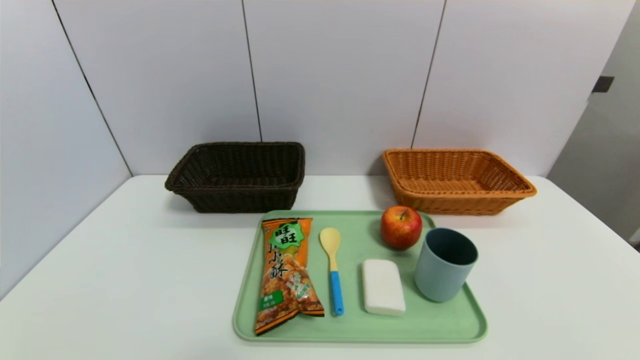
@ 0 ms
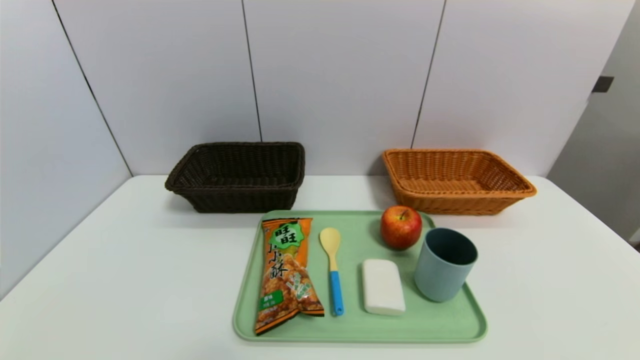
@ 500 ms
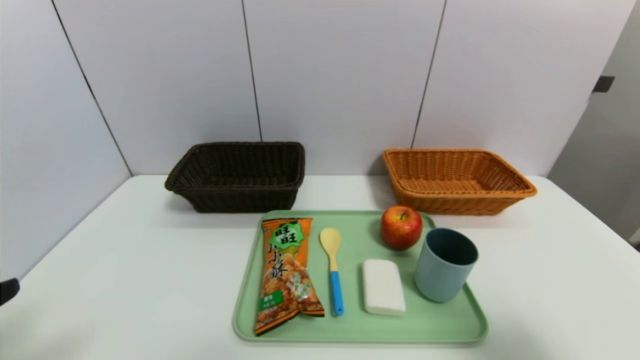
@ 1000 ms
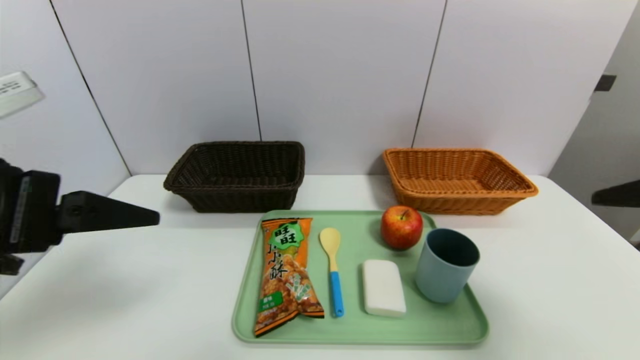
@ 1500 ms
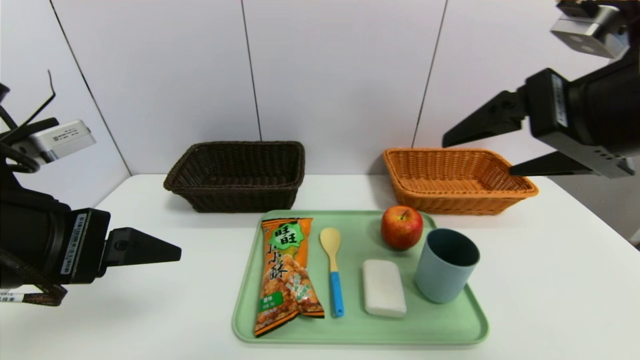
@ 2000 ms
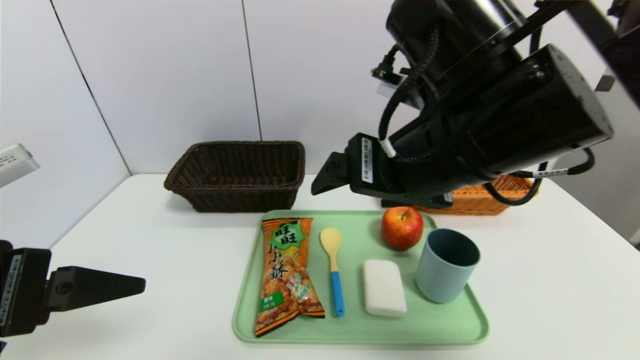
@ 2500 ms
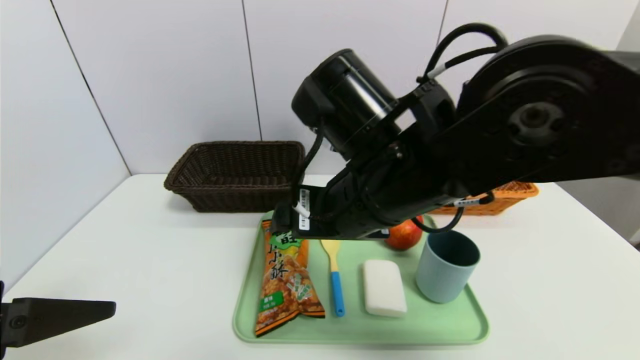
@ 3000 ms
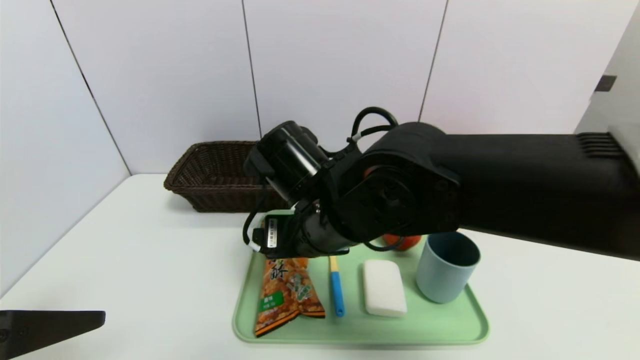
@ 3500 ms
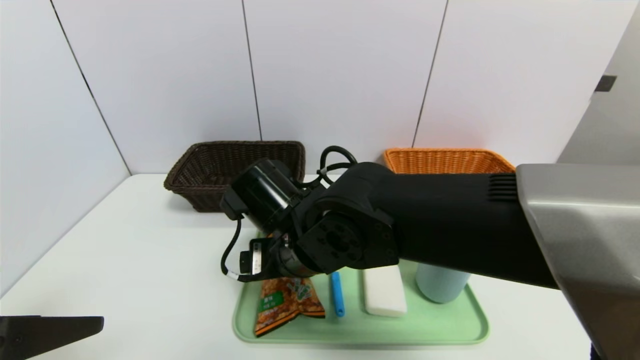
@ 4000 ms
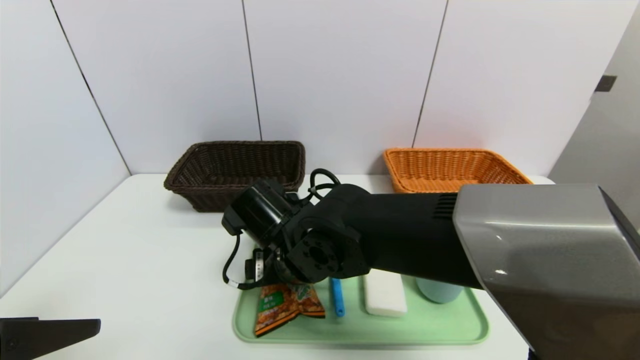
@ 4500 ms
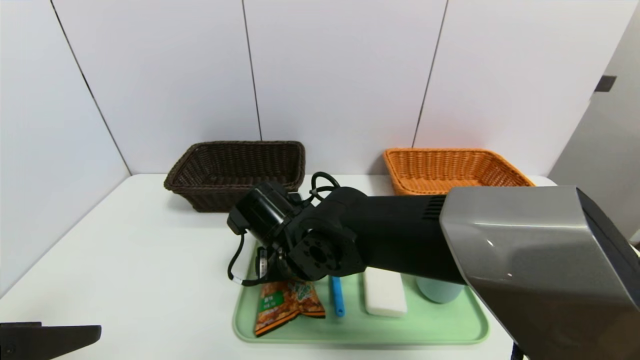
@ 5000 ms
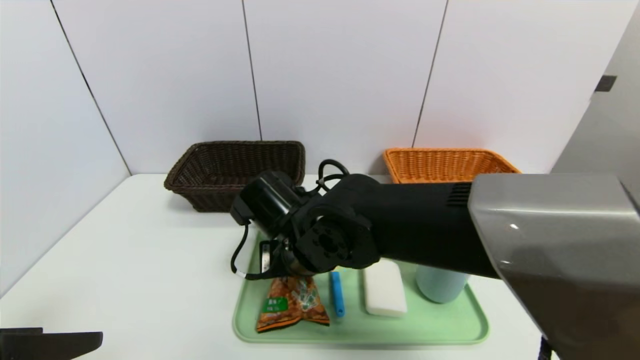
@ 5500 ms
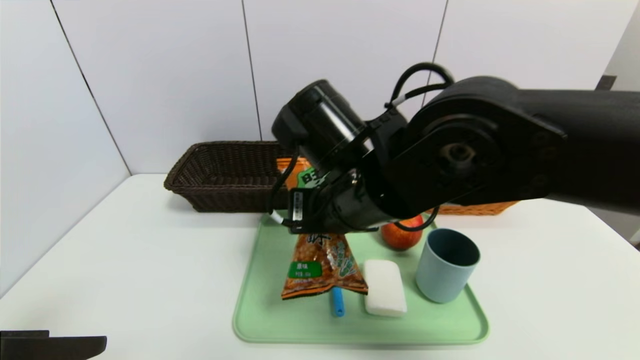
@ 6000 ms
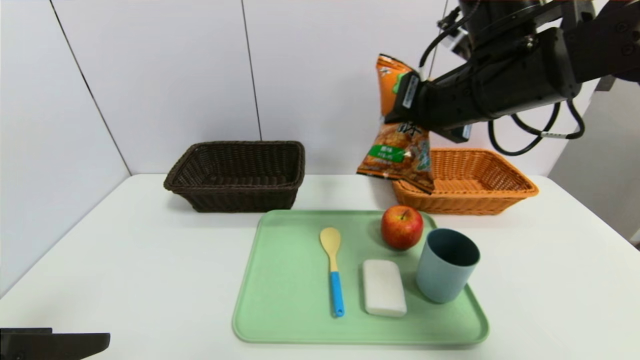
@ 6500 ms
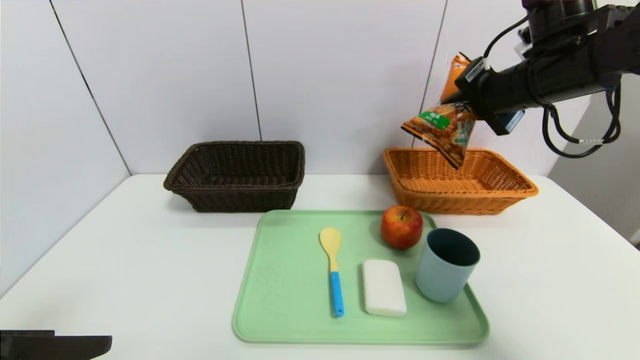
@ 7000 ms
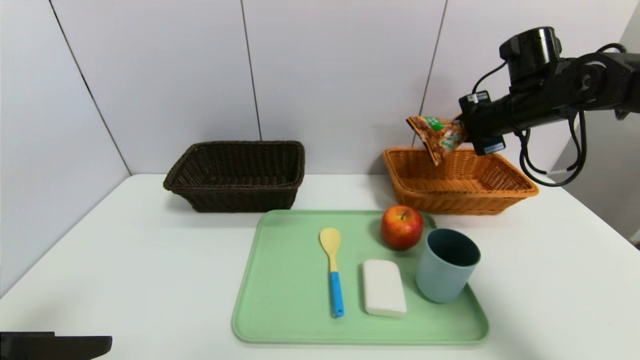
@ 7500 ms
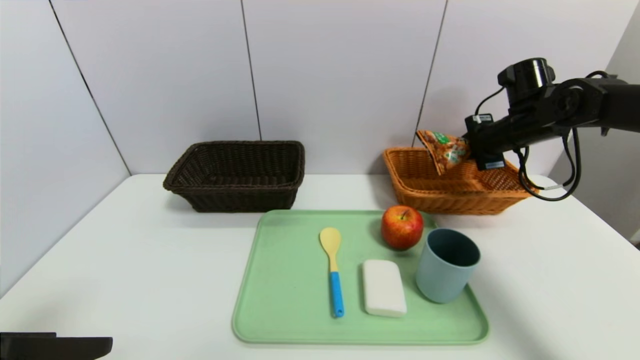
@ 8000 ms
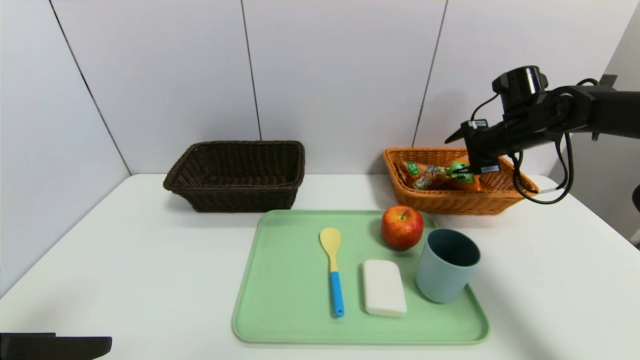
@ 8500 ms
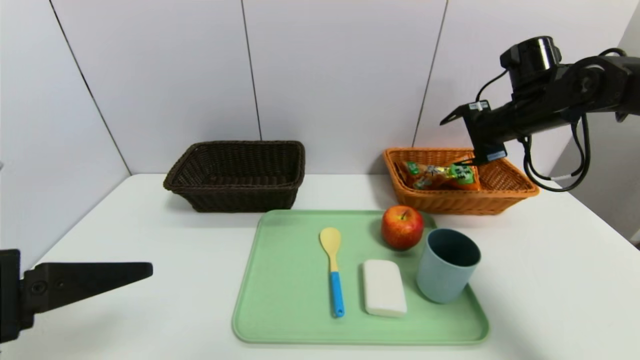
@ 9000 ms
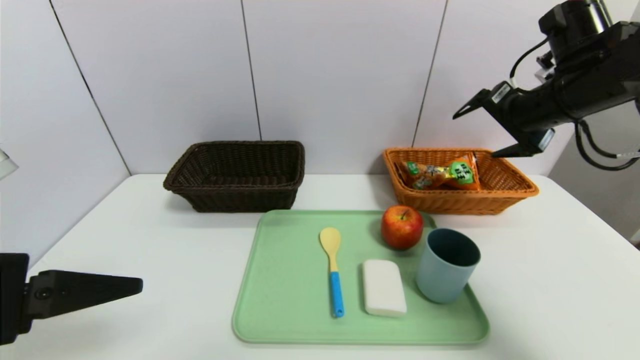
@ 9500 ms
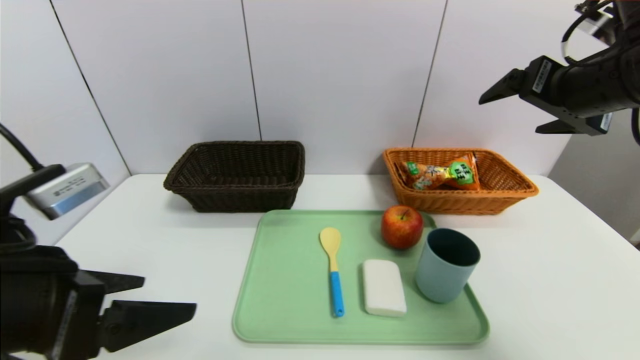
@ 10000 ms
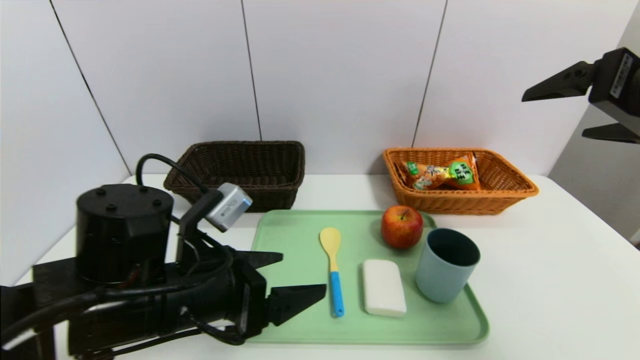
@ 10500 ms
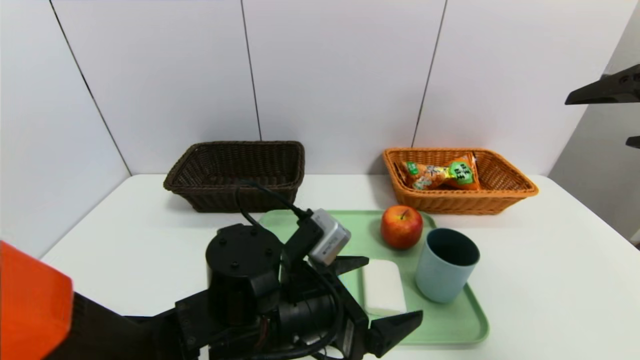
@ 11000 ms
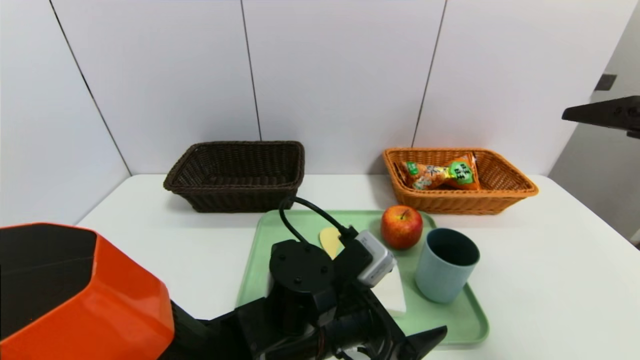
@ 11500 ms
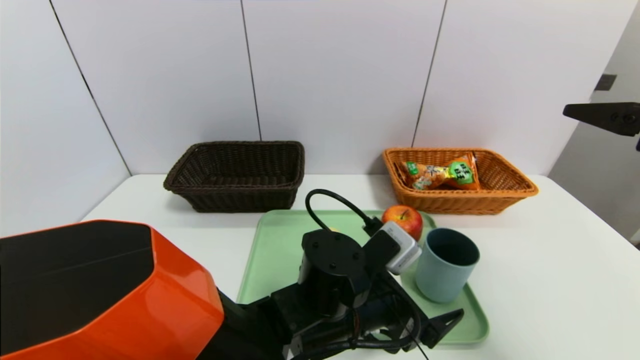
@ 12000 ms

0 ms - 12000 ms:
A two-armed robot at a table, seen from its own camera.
Task of the whole recording: place the food in the right basket with the right gripper, and place the non food items in the left basket with the left gripper.
Step, 0 ms - 9000 ms: Grasp the cookie and put it in the right basket.
0 ms - 2000 ms: The right gripper is displaced upward, forward and to the left by approximately 35 cm; the left gripper heads upward and forward, covering approximately 25 cm.
2000 ms - 4000 ms: The right gripper goes roughly 30 cm to the left and downward; the left gripper heads backward, covering approximately 5 cm.
4000 ms - 6000 ms: The right gripper shifts approximately 10 cm upward and to the right, and closes up.
6000 ms - 8000 ms: The right gripper heads to the right and forward, covering some 35 cm.
8000 ms - 10000 ms: The left gripper changes place by roughly 5 cm, while the right gripper goes approximately 20 cm backward and upward, and opens up.
10000 ms - 12000 ms: The right gripper moves backward, roughly 10 cm; the left gripper travels to the right and downward by roughly 30 cm.

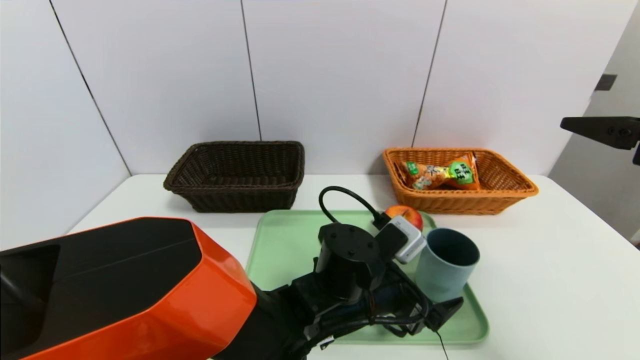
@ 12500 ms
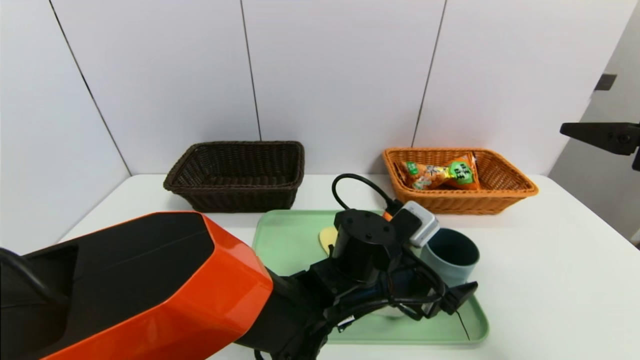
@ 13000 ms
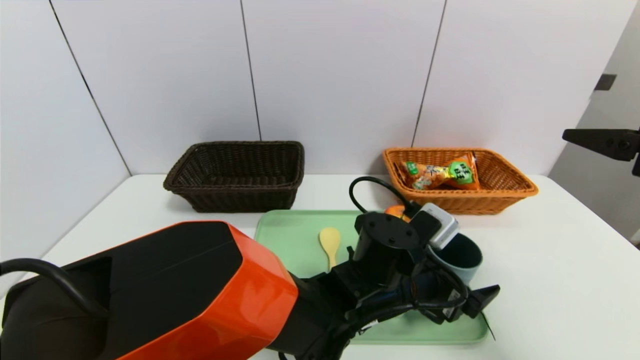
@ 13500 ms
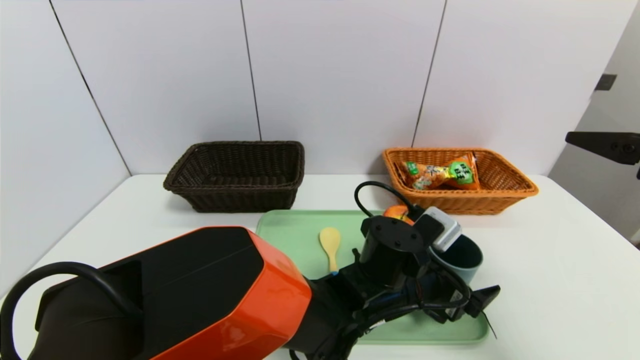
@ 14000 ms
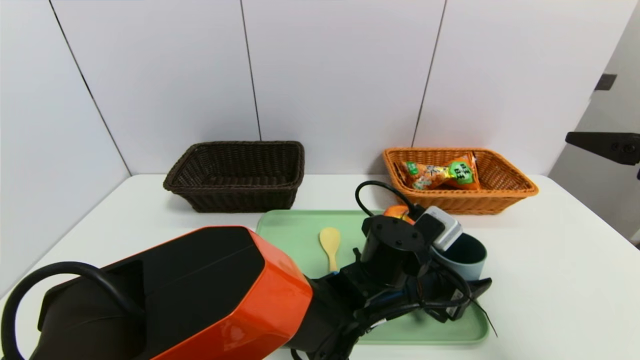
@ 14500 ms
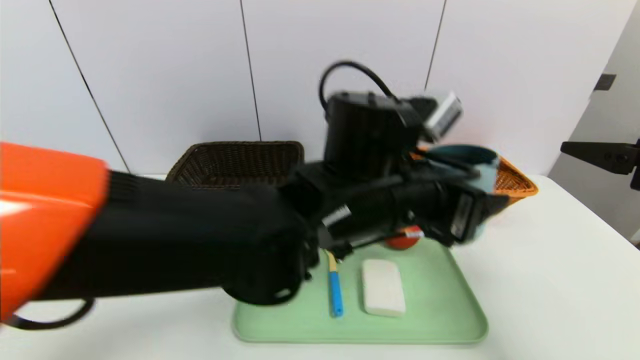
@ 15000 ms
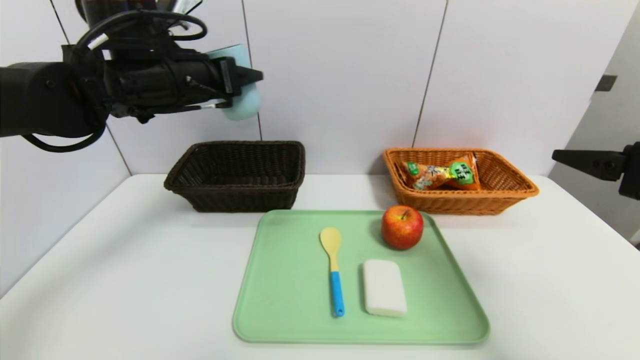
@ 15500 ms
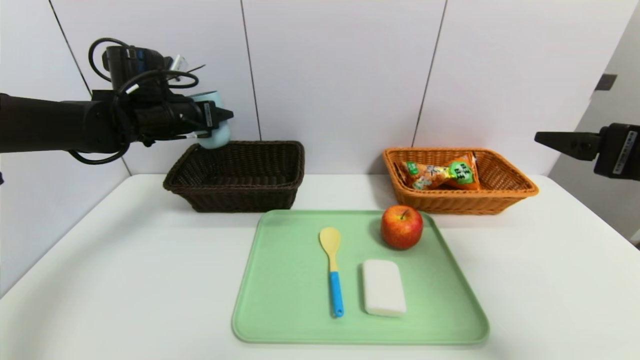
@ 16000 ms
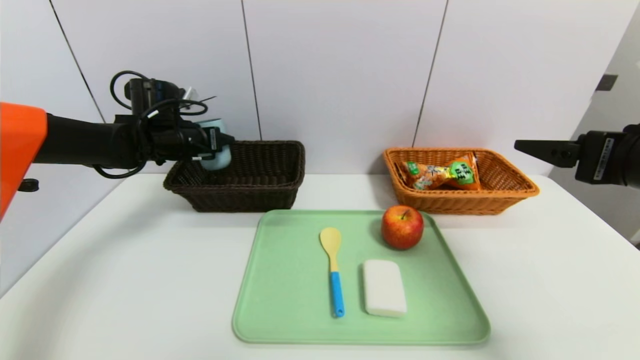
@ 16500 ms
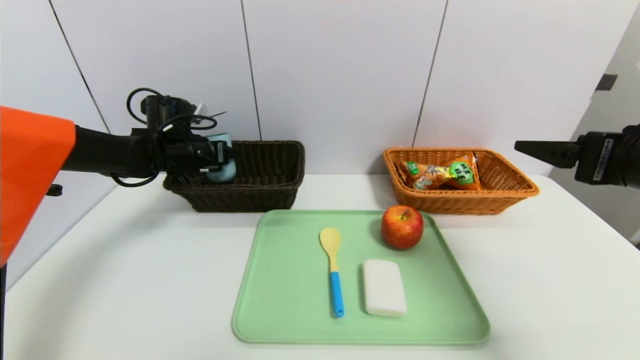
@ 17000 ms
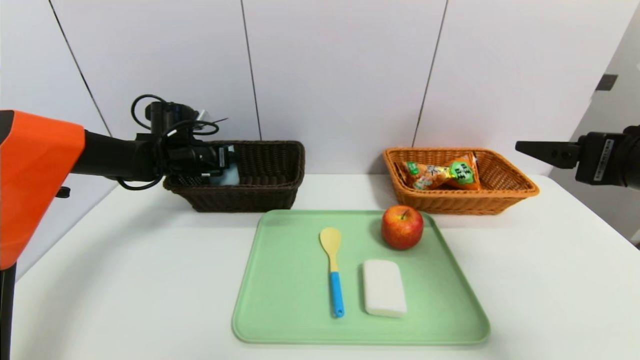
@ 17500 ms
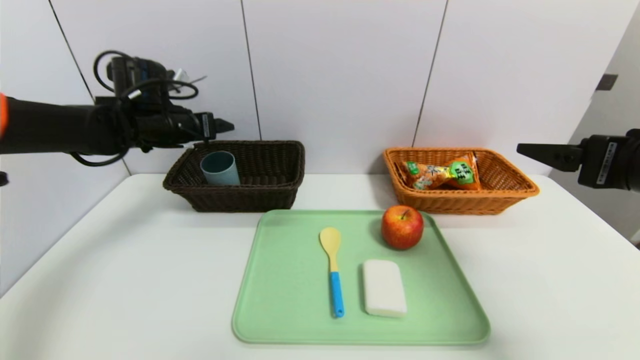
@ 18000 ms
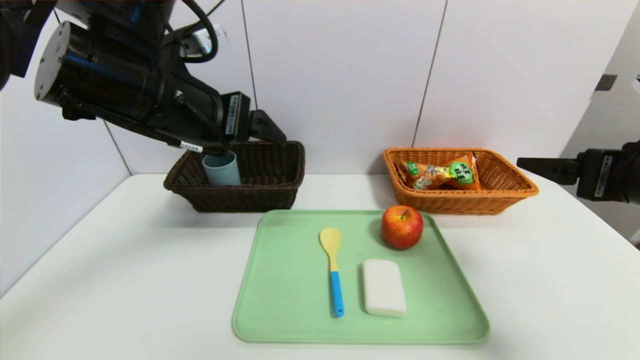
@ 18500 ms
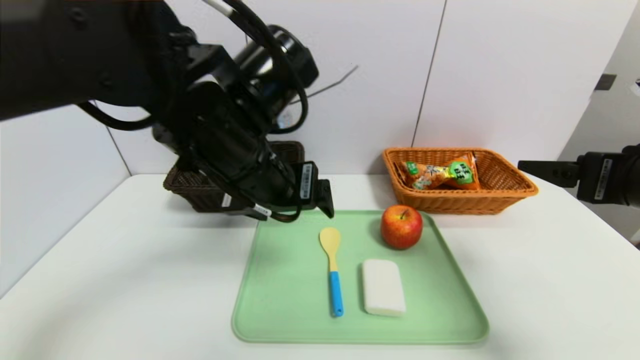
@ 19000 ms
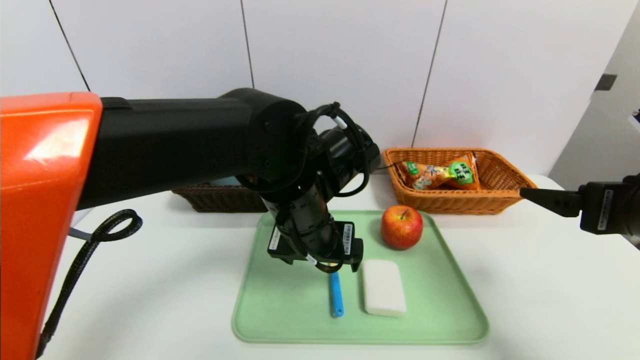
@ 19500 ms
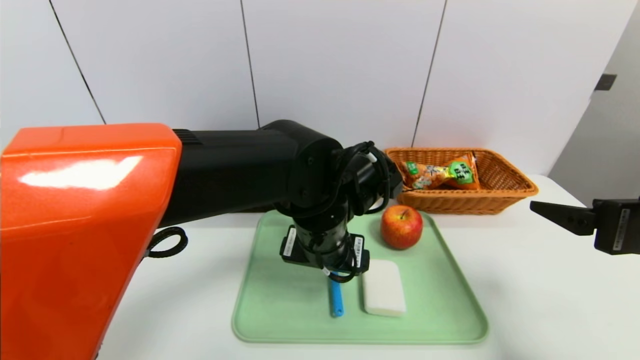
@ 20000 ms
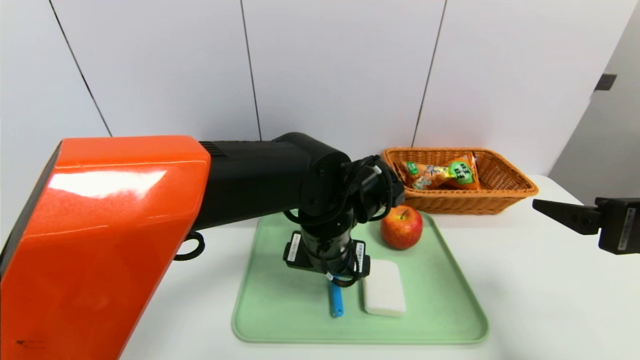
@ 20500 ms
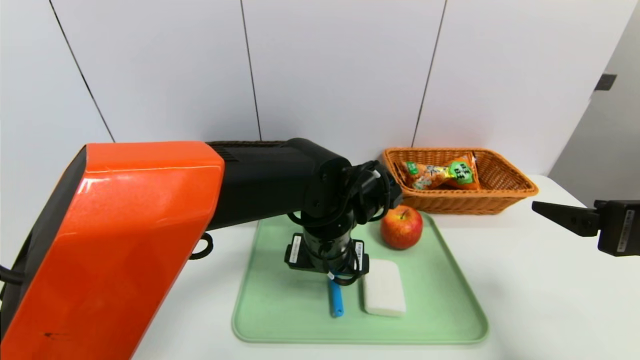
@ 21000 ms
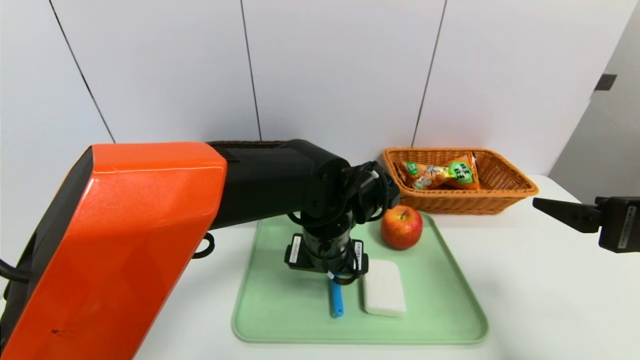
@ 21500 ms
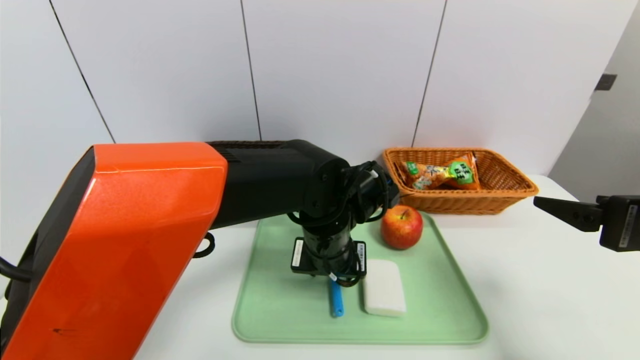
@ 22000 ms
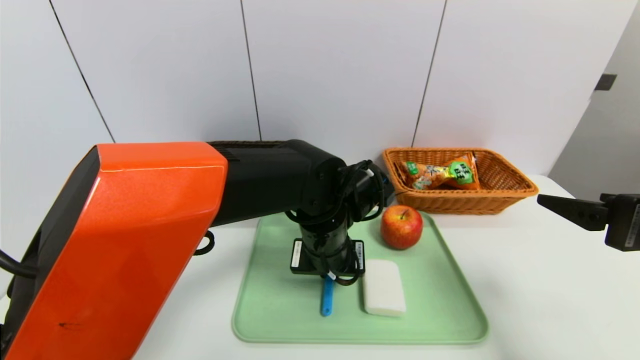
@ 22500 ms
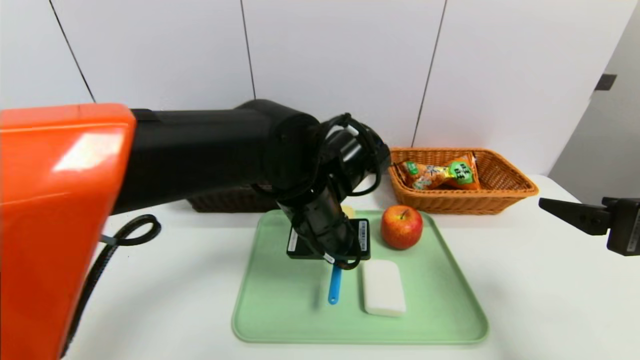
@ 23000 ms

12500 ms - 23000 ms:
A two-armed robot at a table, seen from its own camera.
Task of the whole recording: place the food in the right basket with the right gripper, and place the non food items in the left basket with the left gripper.
Step, 12500 ms - 17500 ms: Grasp the blue cup and put it in the left basket.
12500 ms - 14500 ms: The left gripper goes approximately 5 cm to the right.
14500 ms - 16500 ms: The left gripper goes roughly 40 cm to the left and forward.
16500 ms - 19000 ms: The left gripper heads backward and to the right, covering roughly 25 cm.
19000 ms - 21000 ms: The left gripper is displaced downward and to the right by some 15 cm.
21000 ms - 23000 ms: The left gripper moves upward, roughly 5 cm, and closes.
